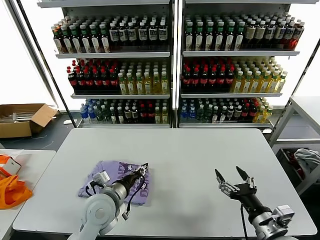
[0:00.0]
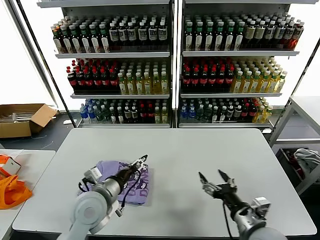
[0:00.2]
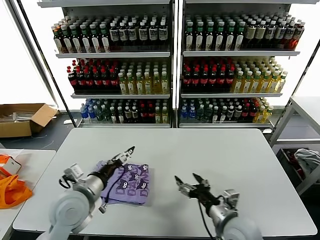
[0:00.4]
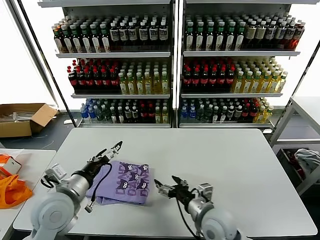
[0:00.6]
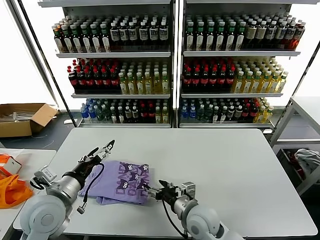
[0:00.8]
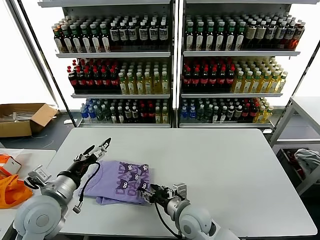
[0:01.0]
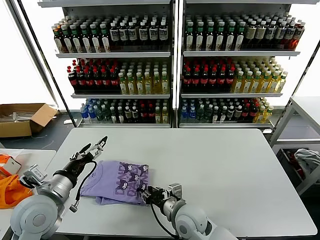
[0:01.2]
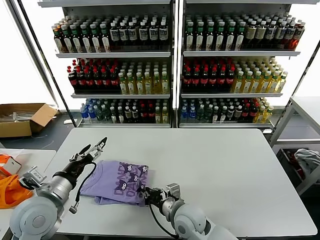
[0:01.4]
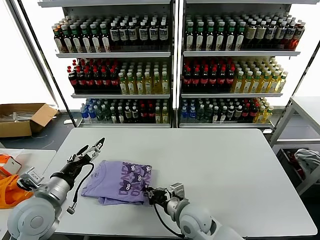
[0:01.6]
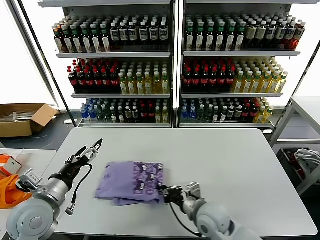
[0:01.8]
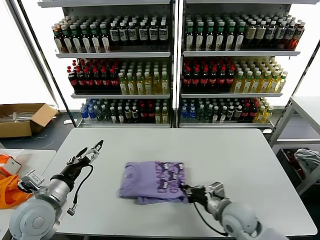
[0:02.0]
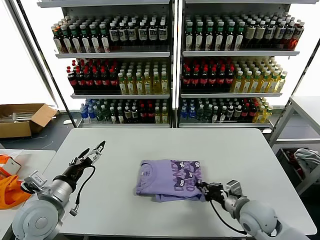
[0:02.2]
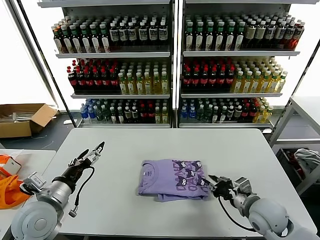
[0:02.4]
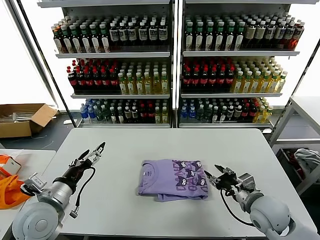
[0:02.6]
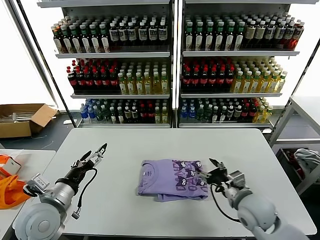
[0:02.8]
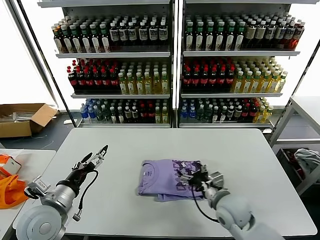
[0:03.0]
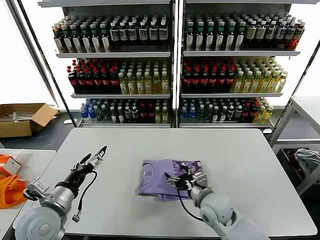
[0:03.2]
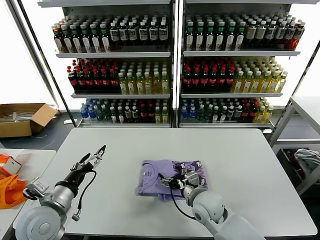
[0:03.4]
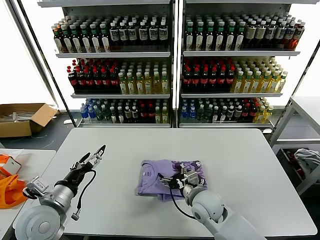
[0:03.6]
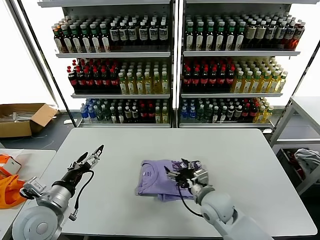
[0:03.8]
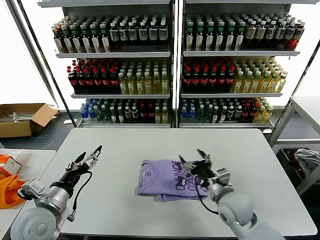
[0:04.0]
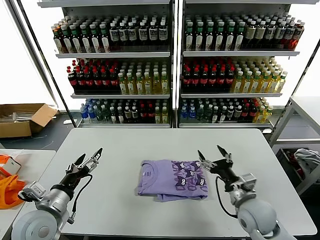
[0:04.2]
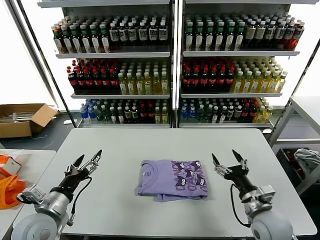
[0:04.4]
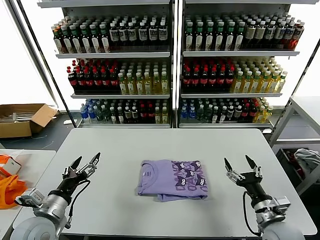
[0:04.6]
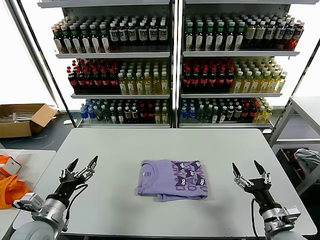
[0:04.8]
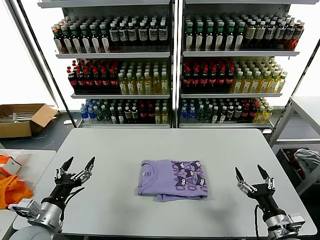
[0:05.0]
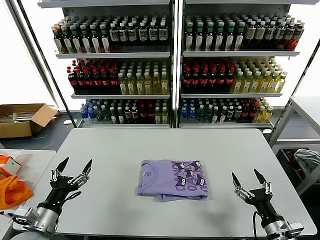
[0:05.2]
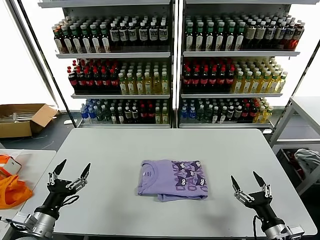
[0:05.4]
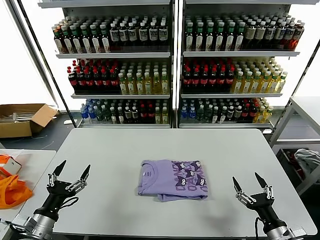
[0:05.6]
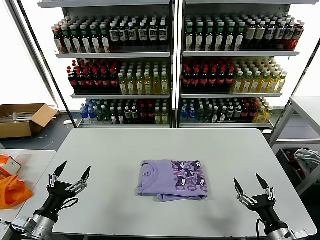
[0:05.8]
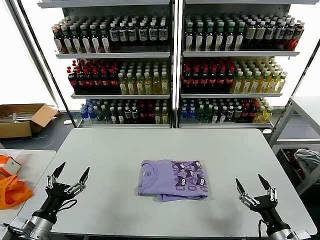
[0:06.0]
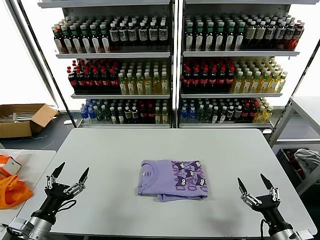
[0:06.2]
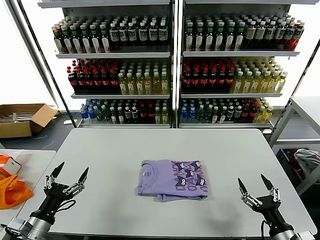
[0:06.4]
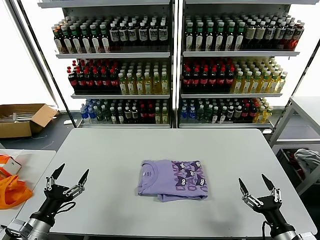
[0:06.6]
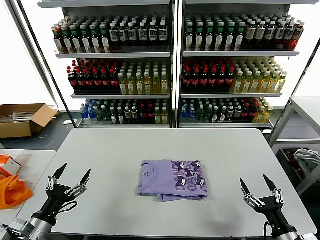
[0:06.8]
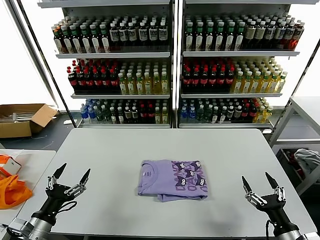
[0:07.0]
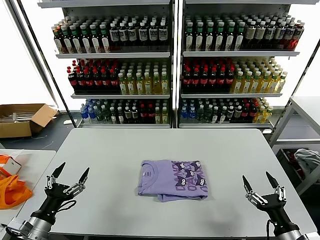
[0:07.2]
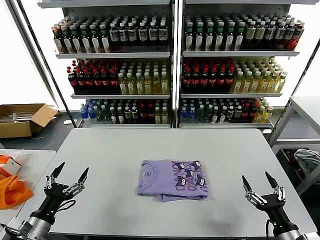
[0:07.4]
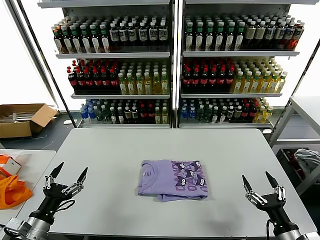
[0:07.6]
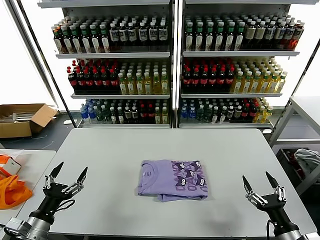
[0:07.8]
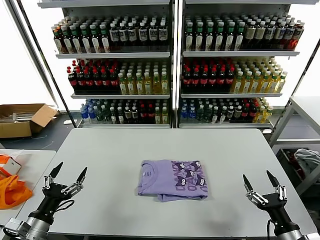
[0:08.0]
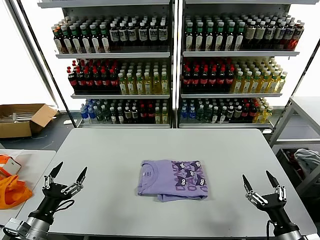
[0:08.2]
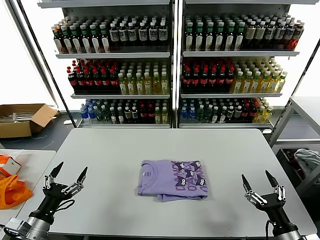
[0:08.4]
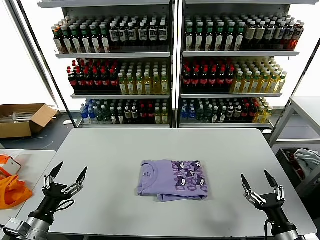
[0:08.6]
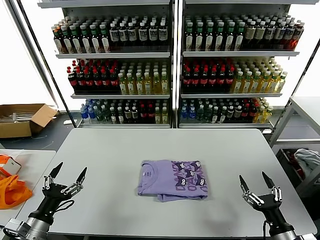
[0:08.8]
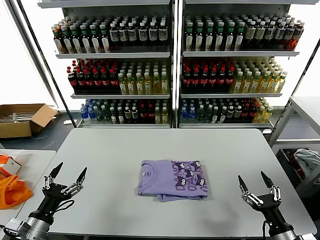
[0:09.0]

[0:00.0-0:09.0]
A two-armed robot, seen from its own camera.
Task of the whole recording: fold and organize the clothes.
Step, 0:00.0 to 0:03.6: Drag the clothes to the center of the table.
0:00.0 to 0:01.6: The left gripper moves to the left and upward, roughly 15 cm, and opens up; the right gripper shifts some 25 cm to the left and forward, and closes its fingers.
0:01.6 to 0:03.0: The right gripper travels to the right by about 10 cm, and opens.
0:03.0 to 0:04.4: The right gripper travels to the right by approximately 10 cm.
0:04.4 to 0:06.0: The right gripper shifts about 10 cm backward and to the right. The left gripper heads backward, covering roughly 5 cm.
0:06.0 to 0:07.6: There are only small adjustments of the grippers.
0:07.6 to 0:09.0: The two grippers keep their place.
